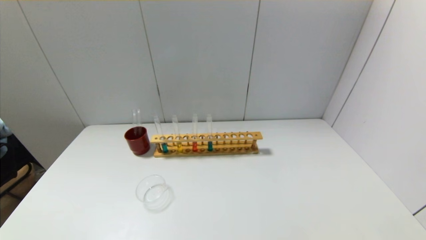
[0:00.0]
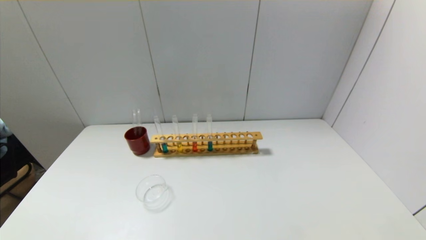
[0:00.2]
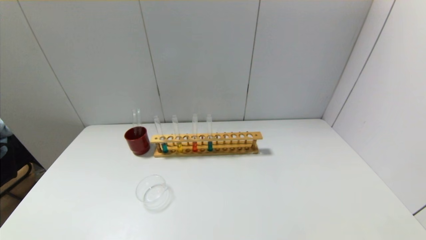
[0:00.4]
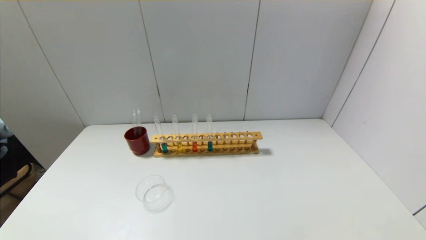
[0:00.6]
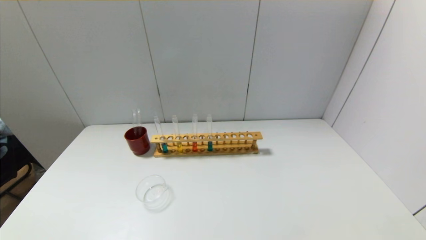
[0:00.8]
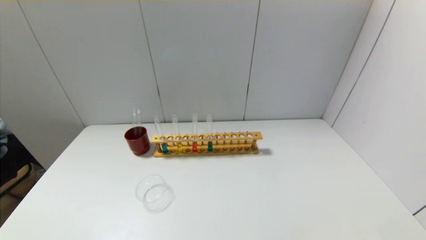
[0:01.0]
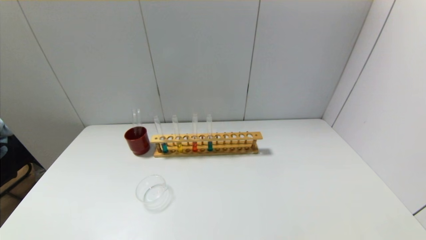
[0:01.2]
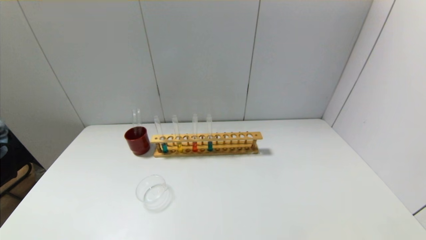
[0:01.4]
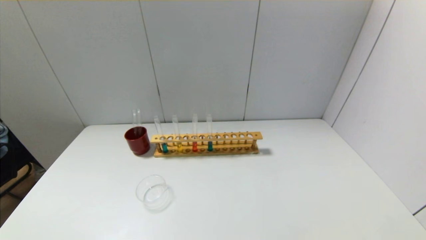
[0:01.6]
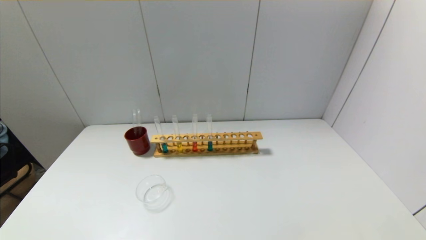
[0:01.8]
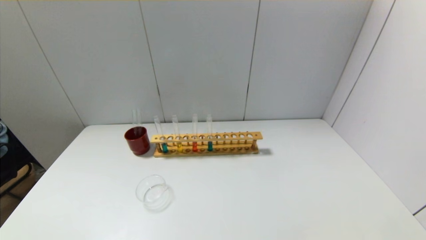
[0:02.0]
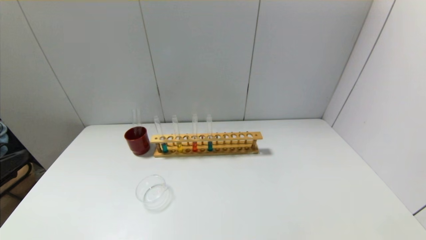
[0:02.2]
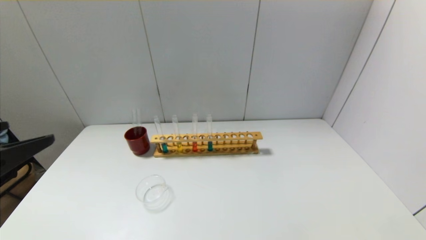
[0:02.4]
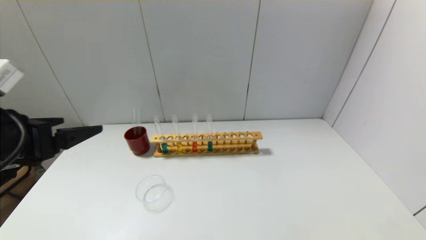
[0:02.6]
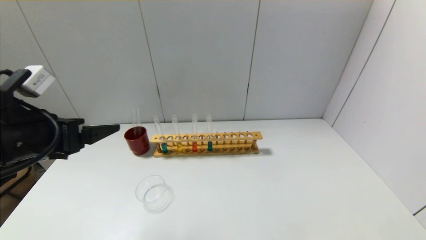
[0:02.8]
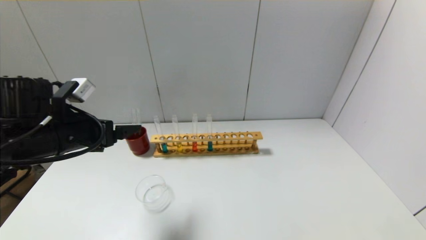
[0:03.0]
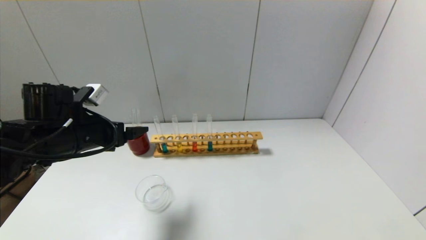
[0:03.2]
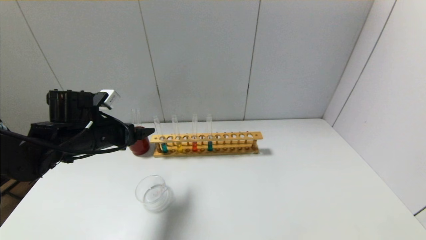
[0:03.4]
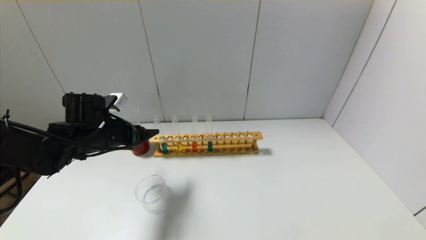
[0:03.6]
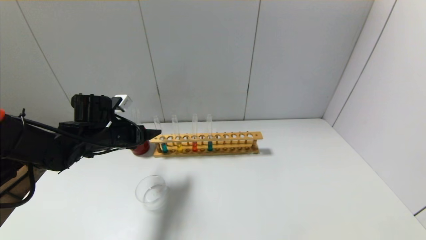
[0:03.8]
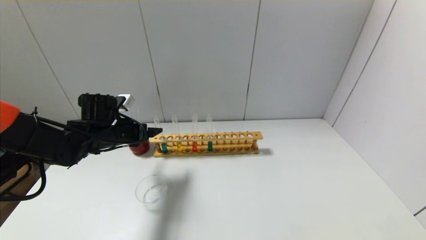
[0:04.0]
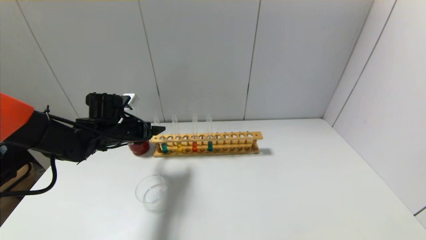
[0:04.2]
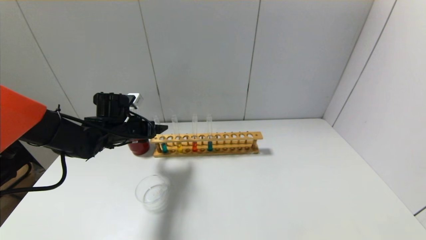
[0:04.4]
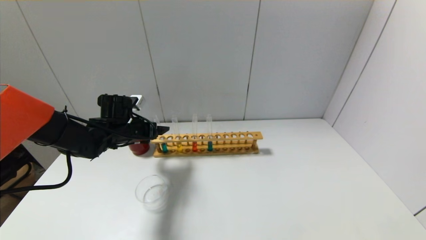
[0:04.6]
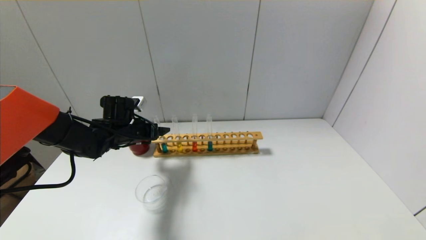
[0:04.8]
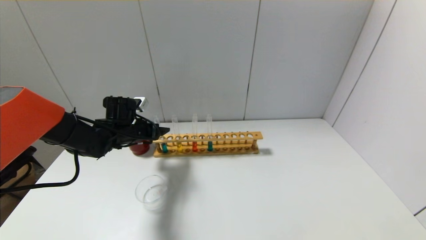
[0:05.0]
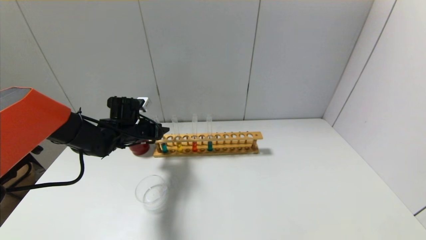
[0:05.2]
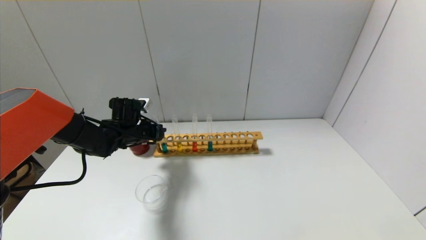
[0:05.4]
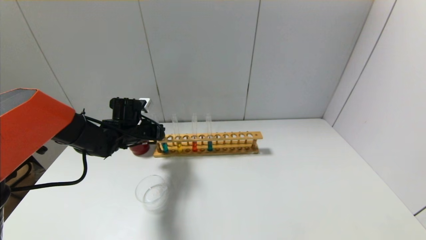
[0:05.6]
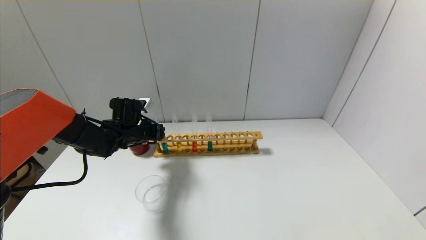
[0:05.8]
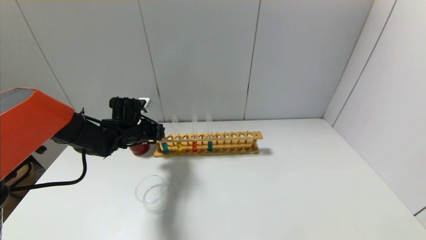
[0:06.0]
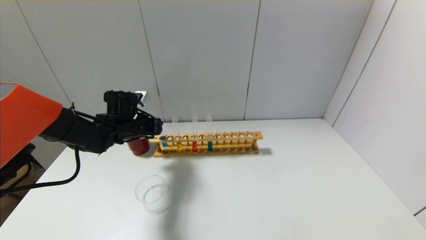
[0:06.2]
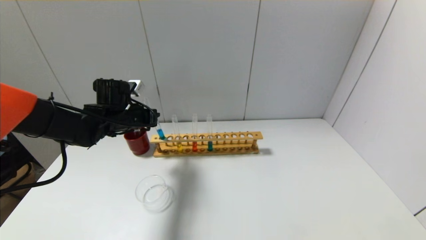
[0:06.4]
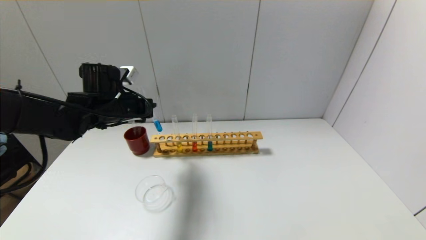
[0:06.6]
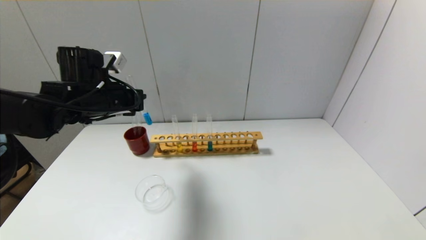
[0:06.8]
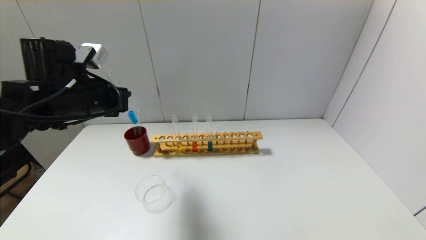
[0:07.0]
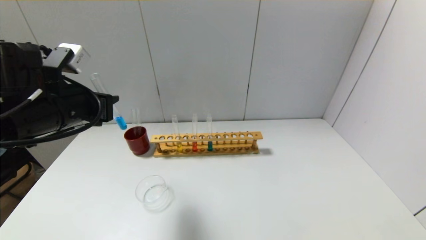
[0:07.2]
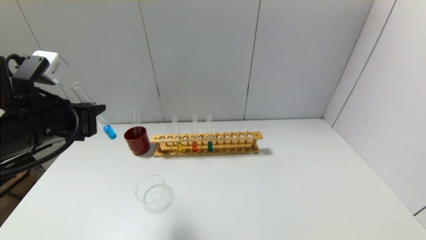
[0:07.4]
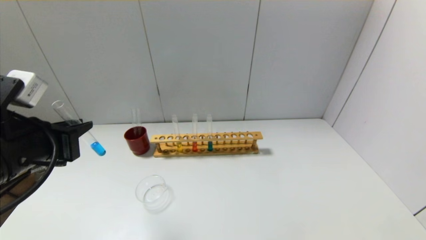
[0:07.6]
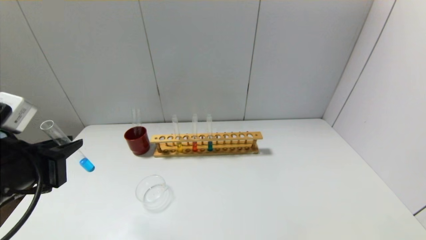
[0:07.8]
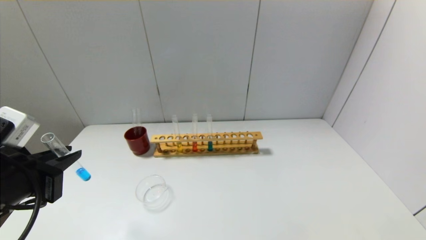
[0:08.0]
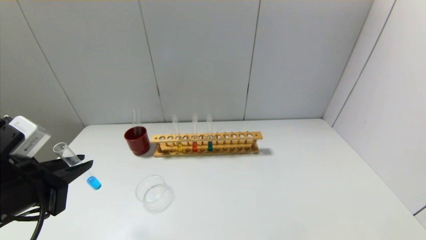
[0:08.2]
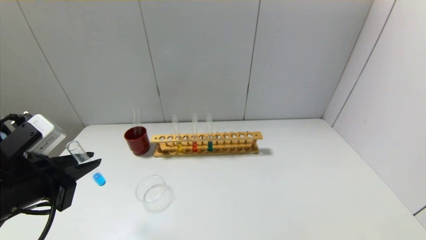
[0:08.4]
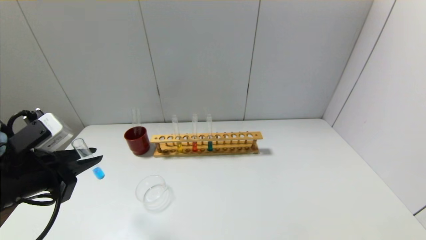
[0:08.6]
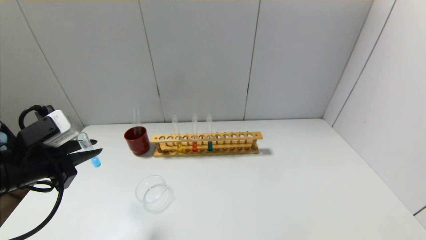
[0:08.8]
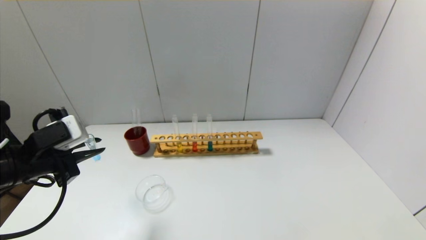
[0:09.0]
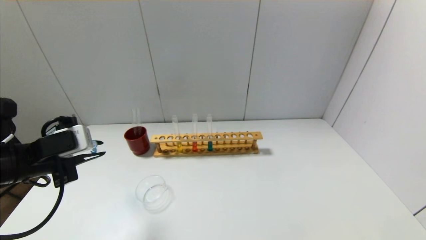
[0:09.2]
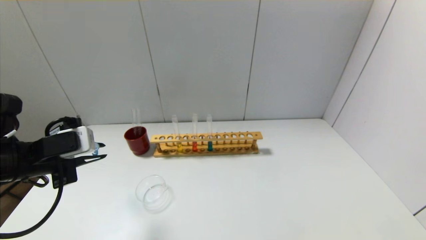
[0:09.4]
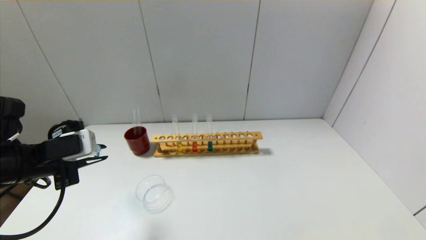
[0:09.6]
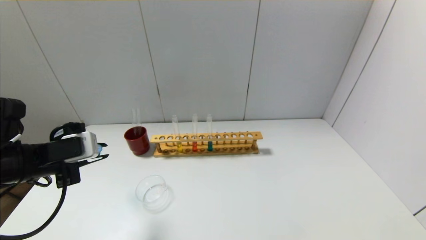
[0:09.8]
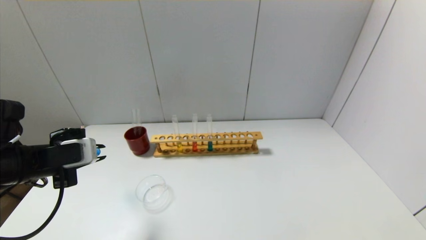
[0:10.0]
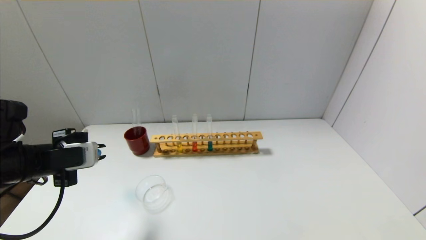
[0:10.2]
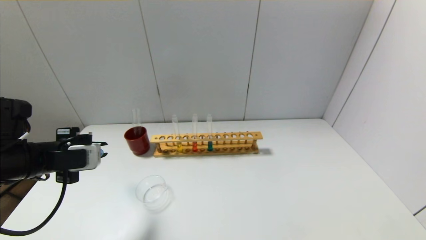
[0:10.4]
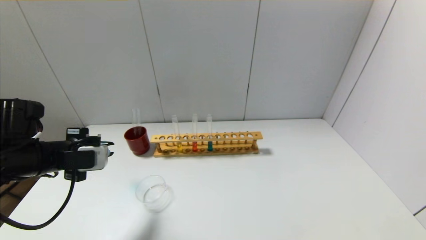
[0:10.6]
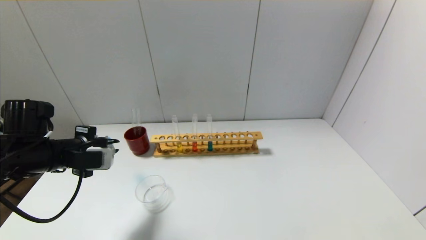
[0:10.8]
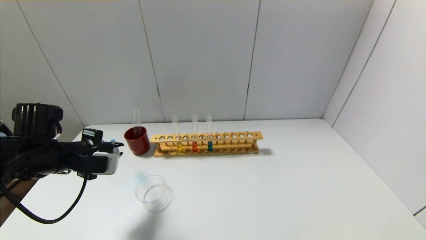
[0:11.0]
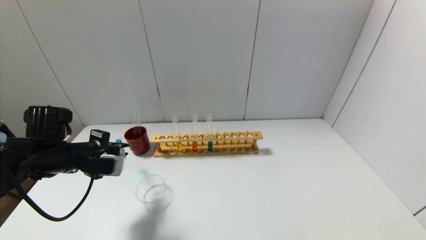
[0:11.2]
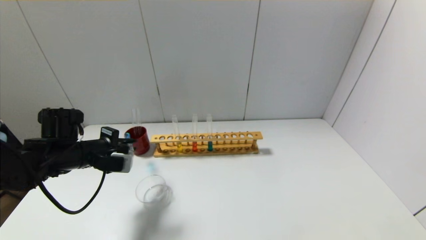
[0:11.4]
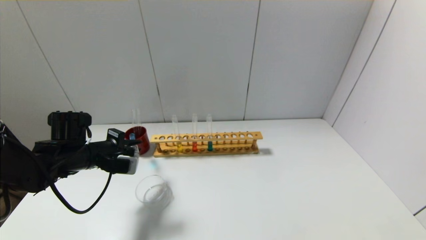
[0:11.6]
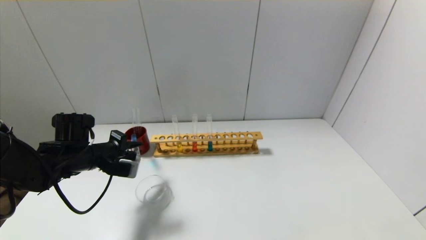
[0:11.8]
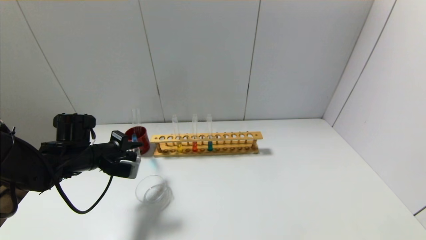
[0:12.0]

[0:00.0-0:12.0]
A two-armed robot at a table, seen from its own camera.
Step, 0:00.0 to 0:05.6: Grasp the blue reagent with the left gripper.
0:01.6 to 0:03.0: The left gripper shifts approximately 30 cm forward.
0:03.0 to 0:04.4: The left gripper moves forward and downward, roughly 15 cm.
0:04.4 to 0:06.0: The left gripper closes up.
0:06.0 to 0:07.6: The left gripper heads backward and upward, covering about 25 cm.
0:07.6 to 0:09.0: The left gripper moves some 5 cm.
0:10.4 to 0:12.0: The left gripper heads forward and downward, covering some 10 cm.

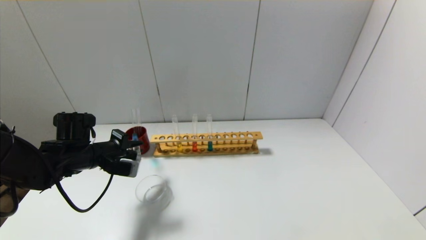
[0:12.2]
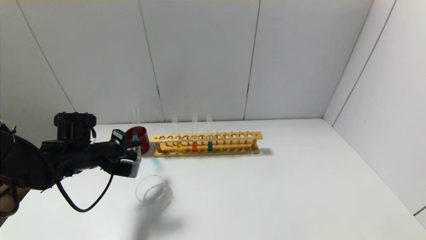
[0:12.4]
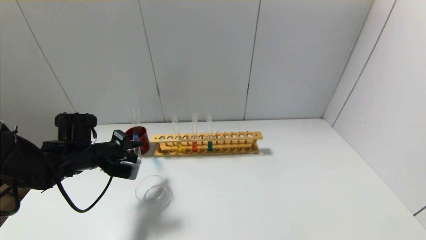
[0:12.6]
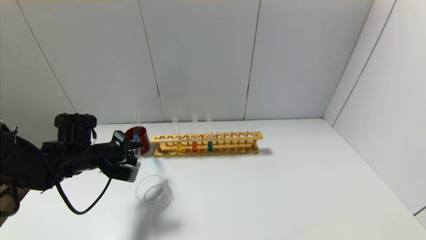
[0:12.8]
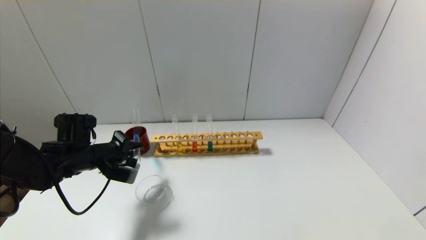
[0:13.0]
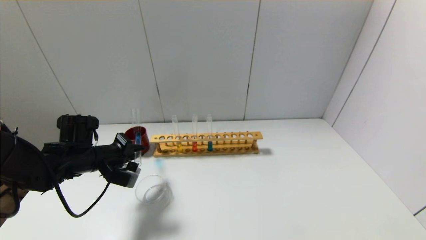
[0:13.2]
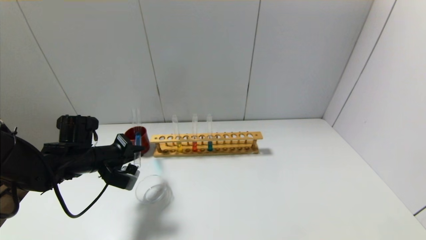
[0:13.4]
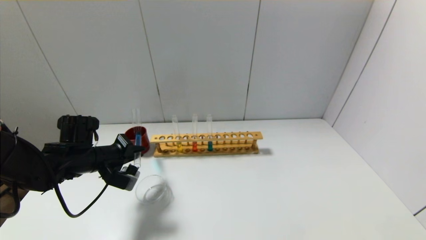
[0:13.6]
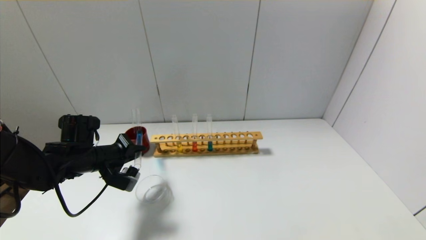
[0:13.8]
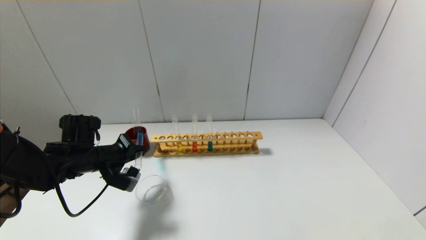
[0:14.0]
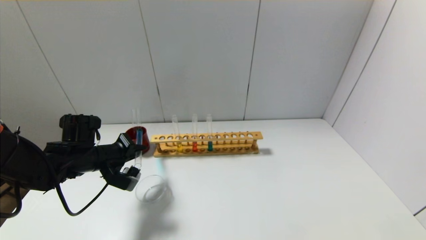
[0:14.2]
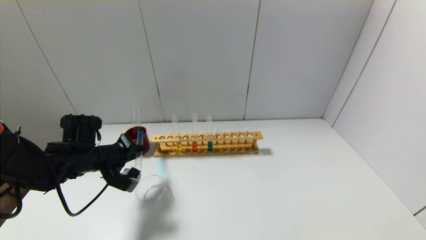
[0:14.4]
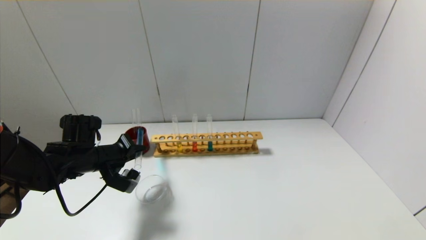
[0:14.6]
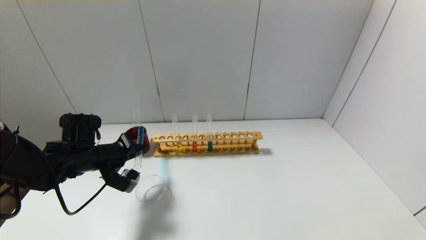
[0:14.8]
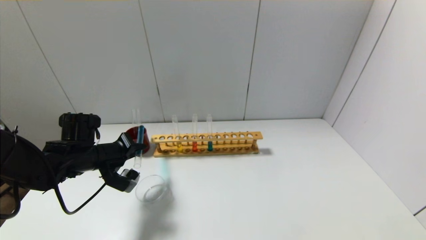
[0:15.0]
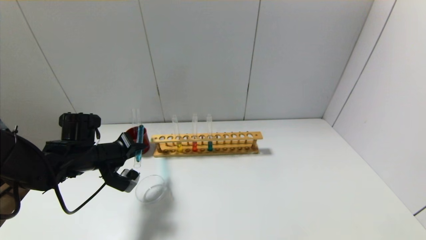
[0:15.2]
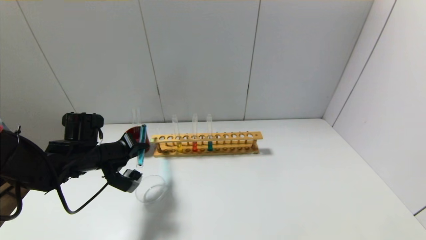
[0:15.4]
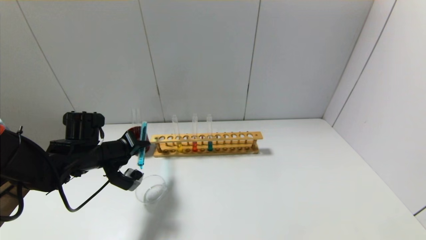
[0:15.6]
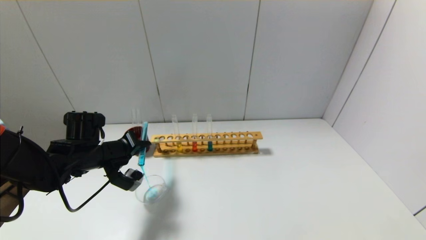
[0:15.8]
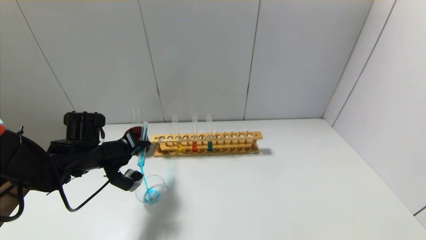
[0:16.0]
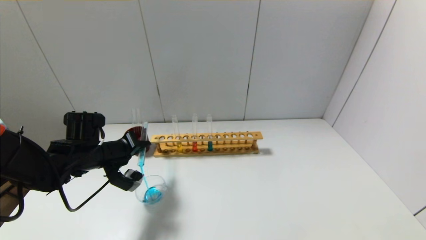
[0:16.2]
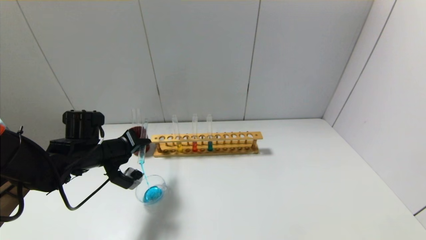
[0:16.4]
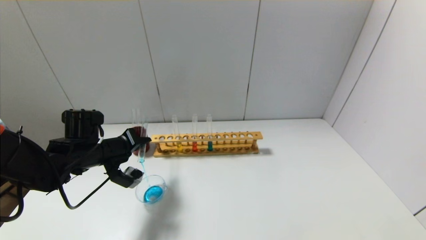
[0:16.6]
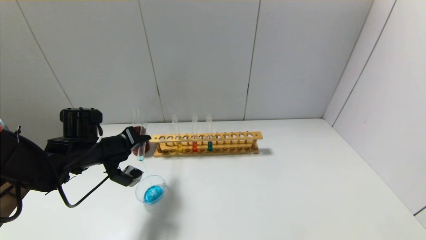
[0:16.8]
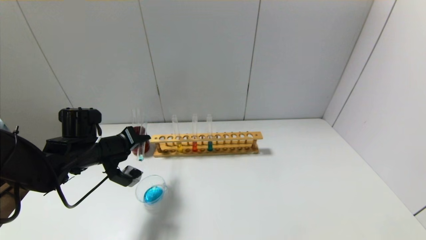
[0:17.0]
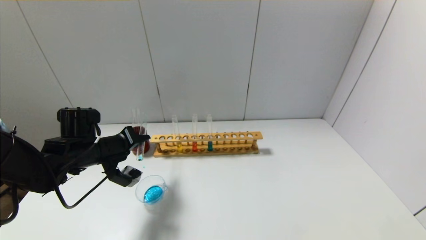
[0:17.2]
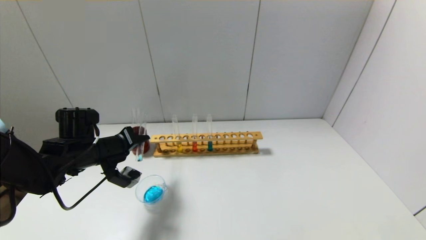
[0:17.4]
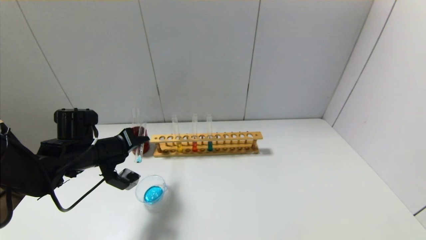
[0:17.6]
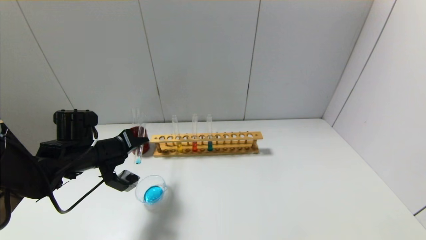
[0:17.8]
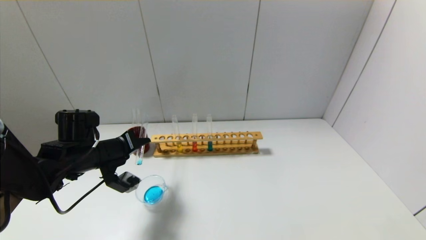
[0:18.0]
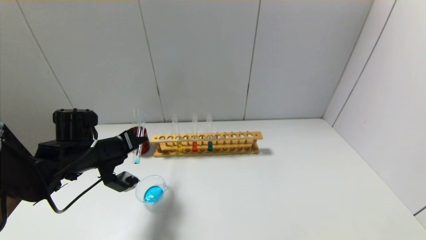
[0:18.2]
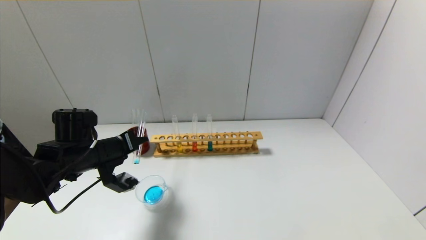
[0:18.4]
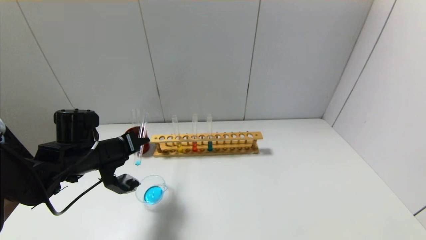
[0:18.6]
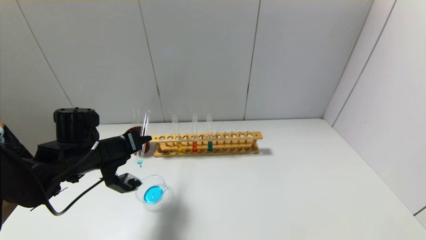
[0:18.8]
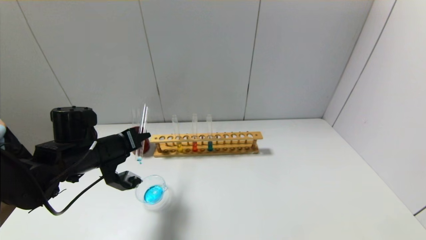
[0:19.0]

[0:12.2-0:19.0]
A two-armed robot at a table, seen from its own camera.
0:12.2 to 0:13.6: The grippers make only small movements.
0:13.6 to 0:16.2: The grippers move only a little.
0:16.2 to 0:17.6: The grippers move only a little.
0:17.6 to 0:19.0: There are only small adjustments of the grippers.
